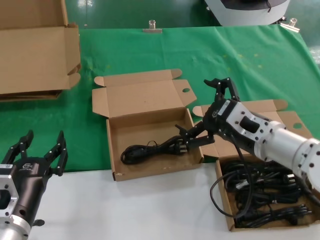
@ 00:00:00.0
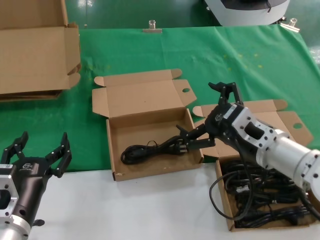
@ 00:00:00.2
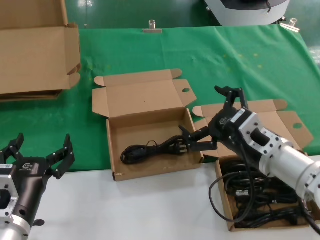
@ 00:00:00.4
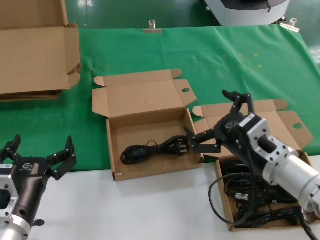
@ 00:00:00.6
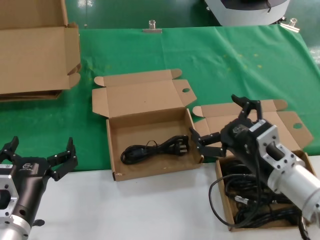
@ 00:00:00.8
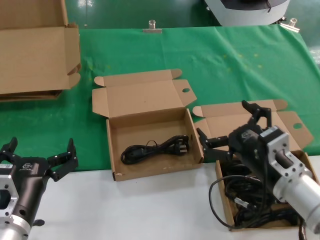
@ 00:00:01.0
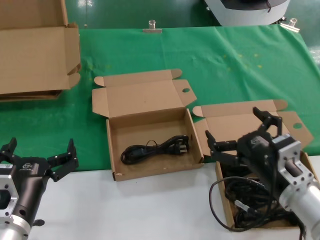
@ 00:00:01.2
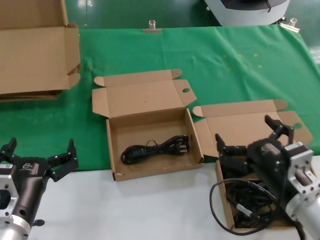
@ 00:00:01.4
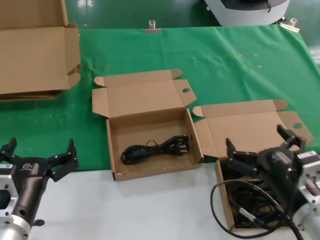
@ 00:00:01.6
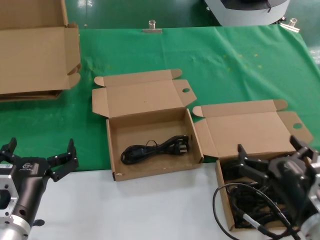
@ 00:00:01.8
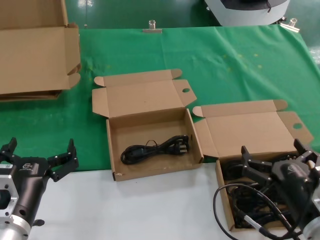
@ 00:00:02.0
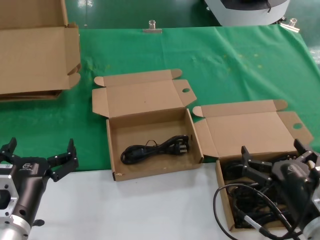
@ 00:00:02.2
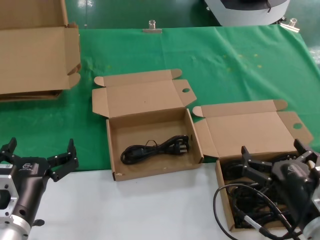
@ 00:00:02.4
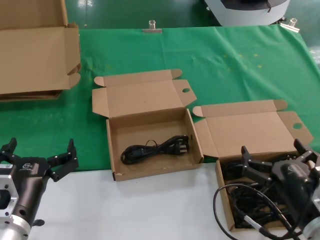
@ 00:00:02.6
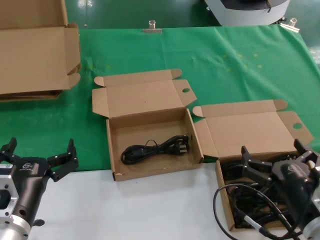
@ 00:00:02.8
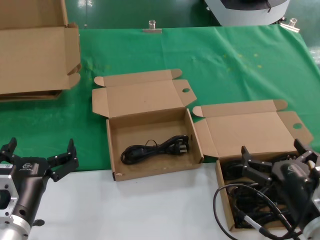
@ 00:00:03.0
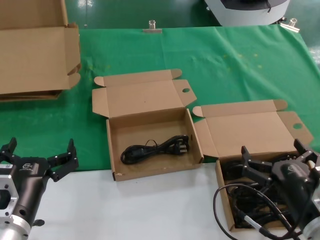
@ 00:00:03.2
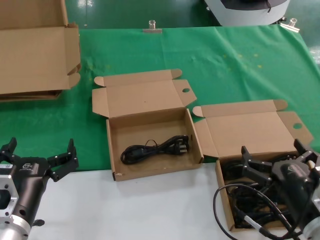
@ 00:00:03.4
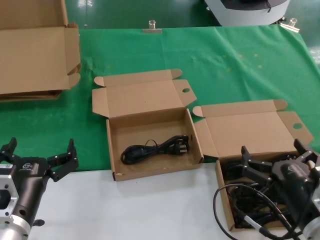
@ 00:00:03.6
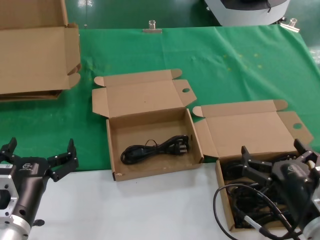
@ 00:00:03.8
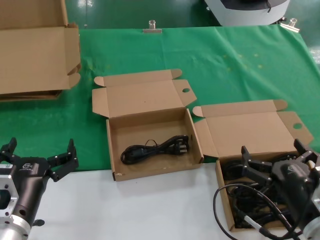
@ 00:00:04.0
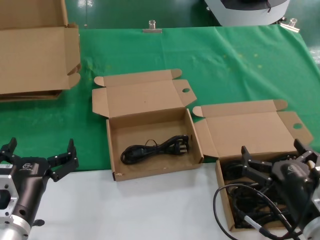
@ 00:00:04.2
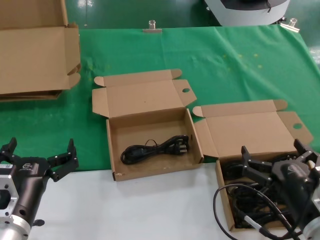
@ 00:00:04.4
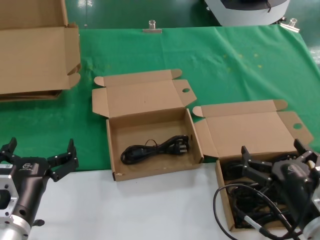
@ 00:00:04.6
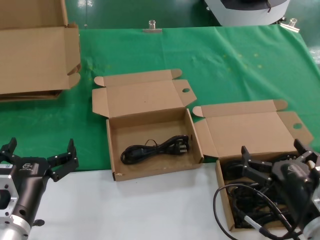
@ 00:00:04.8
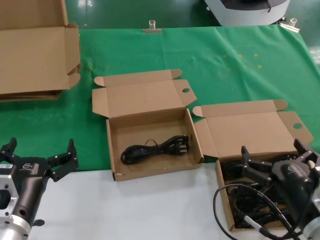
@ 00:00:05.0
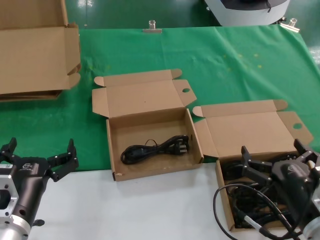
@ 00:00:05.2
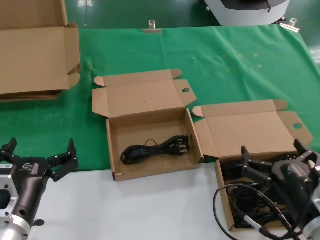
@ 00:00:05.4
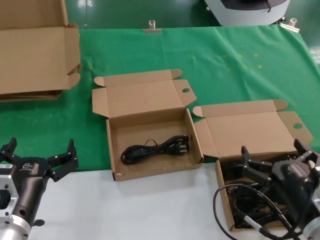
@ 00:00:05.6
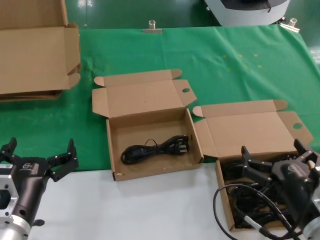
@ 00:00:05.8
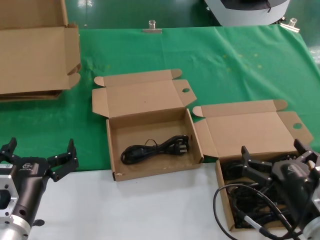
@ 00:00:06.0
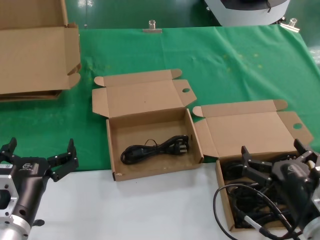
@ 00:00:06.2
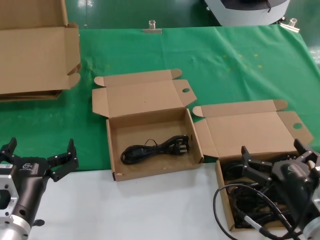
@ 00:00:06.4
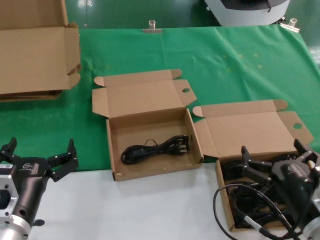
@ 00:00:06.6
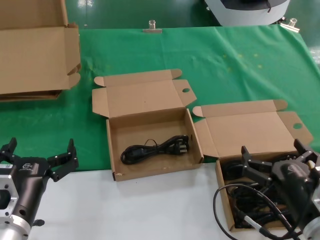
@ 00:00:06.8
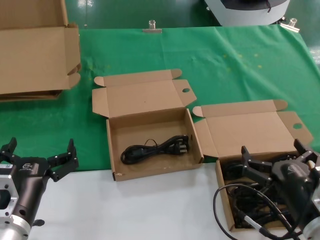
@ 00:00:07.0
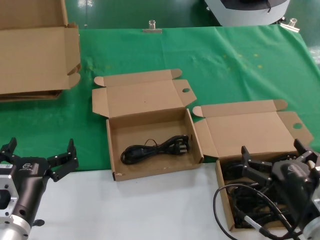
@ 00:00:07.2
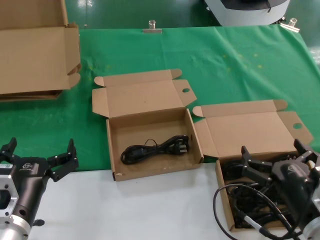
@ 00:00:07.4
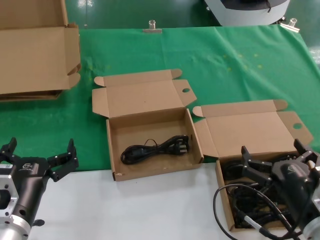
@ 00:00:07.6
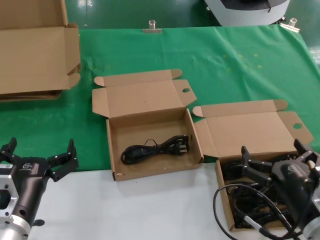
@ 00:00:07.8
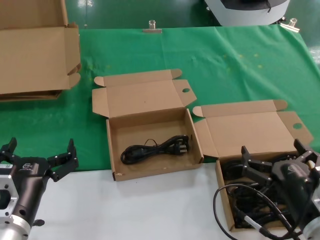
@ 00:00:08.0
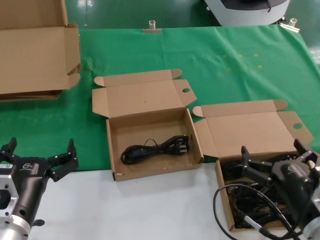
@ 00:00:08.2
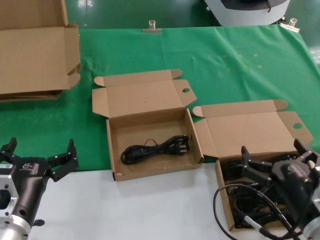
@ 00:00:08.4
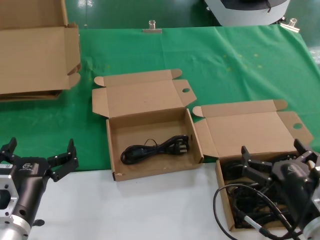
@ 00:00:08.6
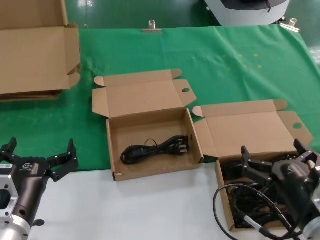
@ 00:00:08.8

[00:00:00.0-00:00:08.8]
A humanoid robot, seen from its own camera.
Task of the whole recording: take the parts from the box containing them and put them into an empty box.
00:00:00.0 to 00:00:01.4: The right hand shifts some 15 cm downward and backward.
00:00:01.4 to 00:00:03.0: The right hand changes place by some 5 cm.
00:00:03.0 to 00:00:08.8: The two hands keep their place.
